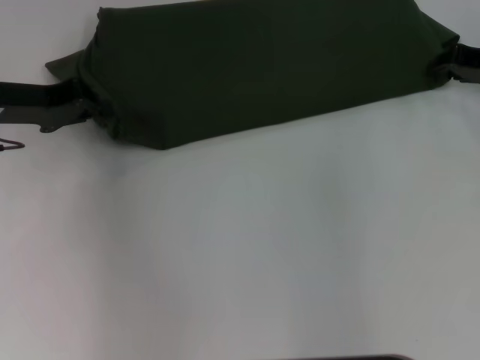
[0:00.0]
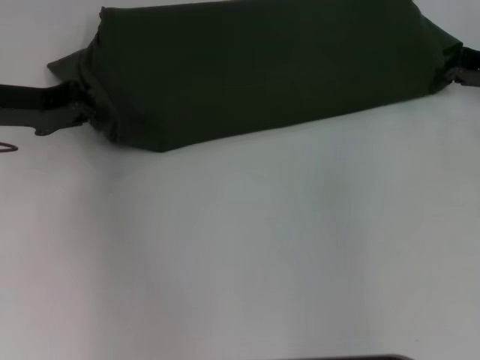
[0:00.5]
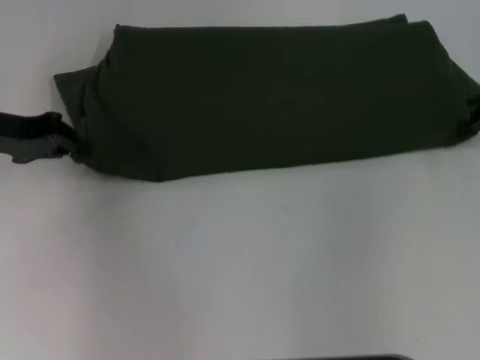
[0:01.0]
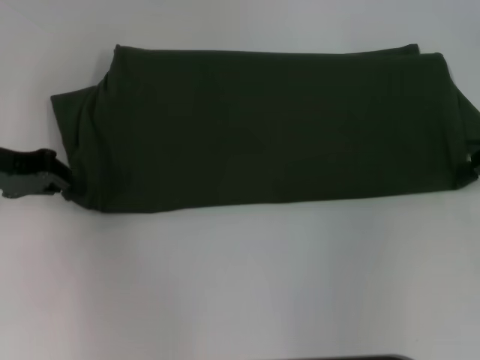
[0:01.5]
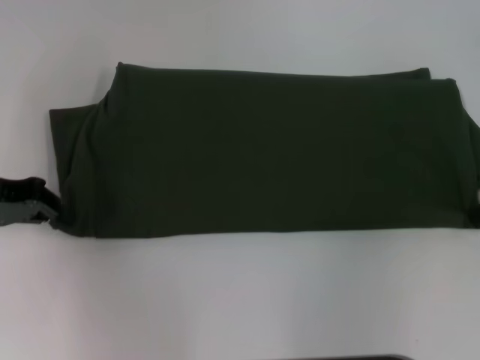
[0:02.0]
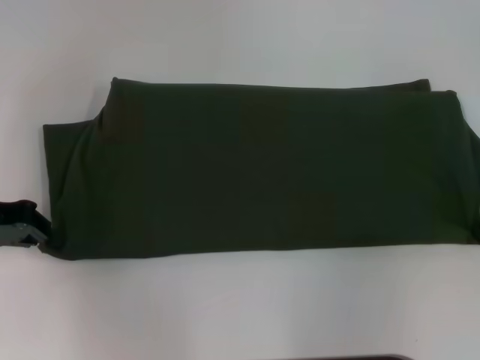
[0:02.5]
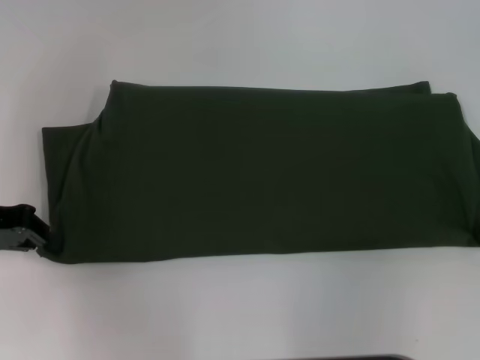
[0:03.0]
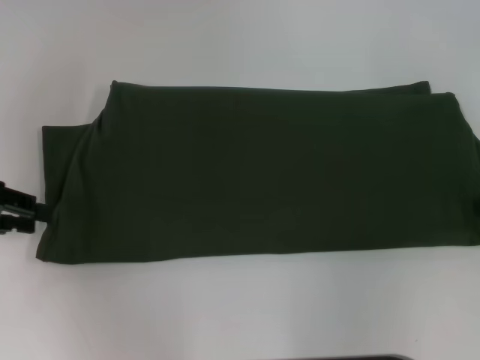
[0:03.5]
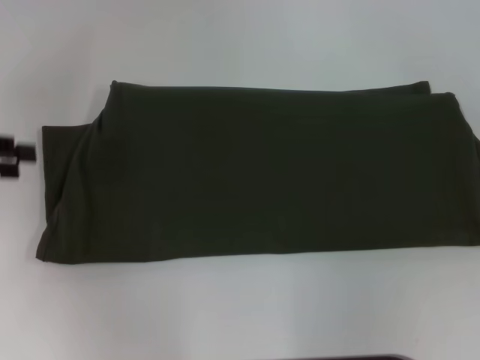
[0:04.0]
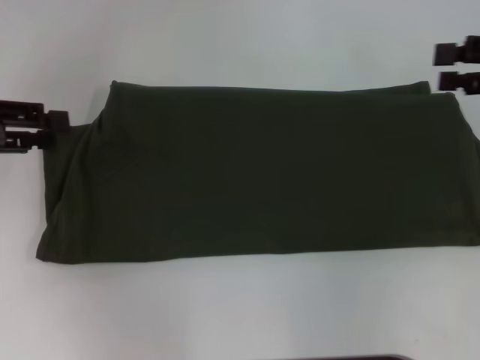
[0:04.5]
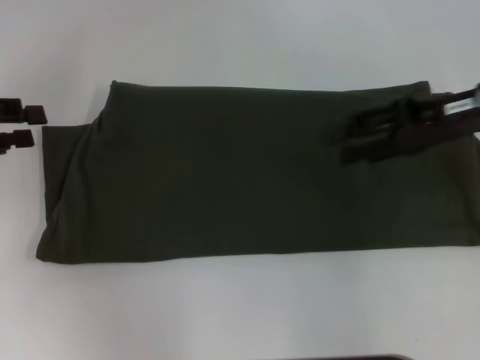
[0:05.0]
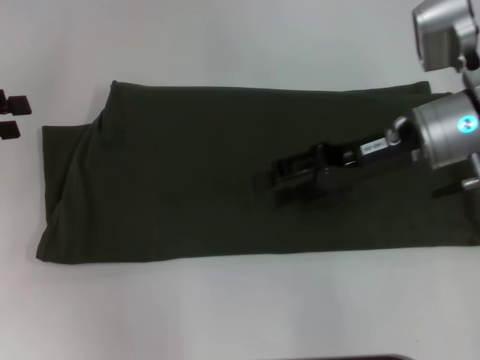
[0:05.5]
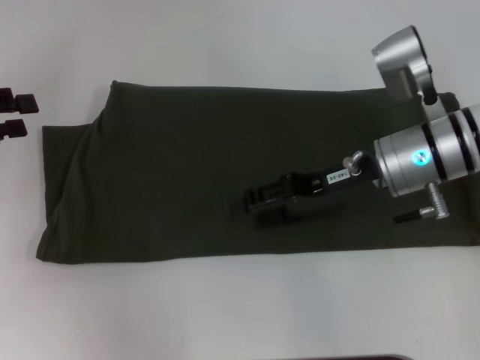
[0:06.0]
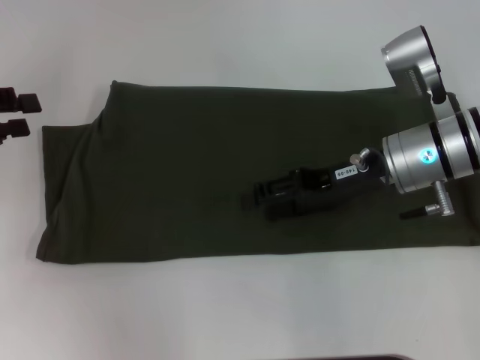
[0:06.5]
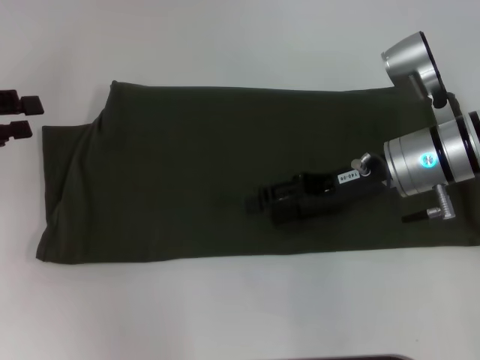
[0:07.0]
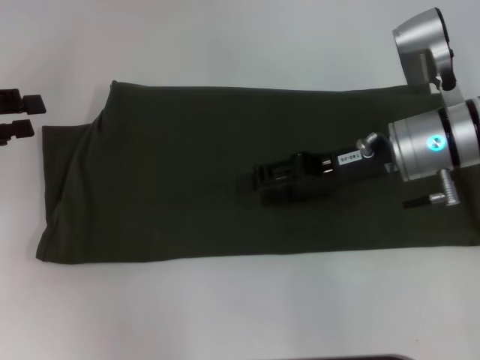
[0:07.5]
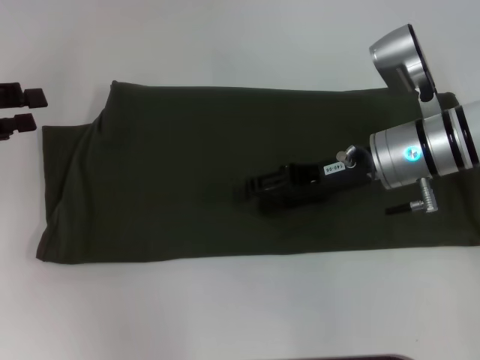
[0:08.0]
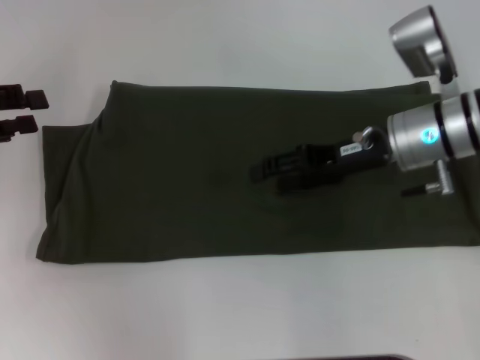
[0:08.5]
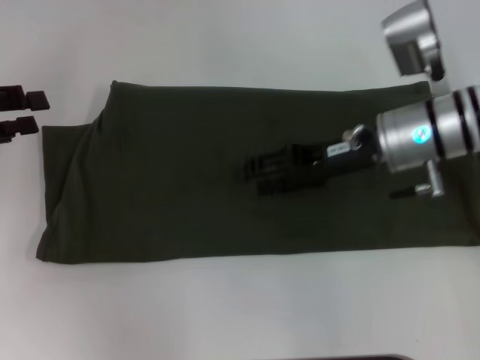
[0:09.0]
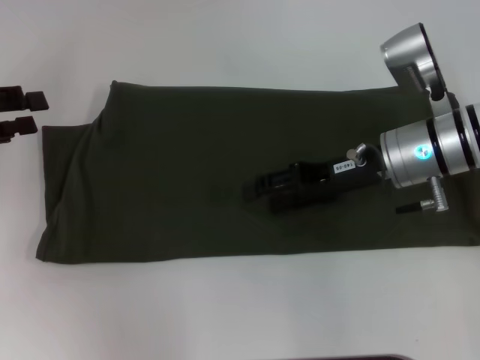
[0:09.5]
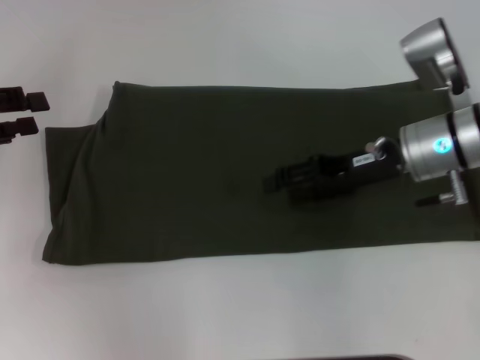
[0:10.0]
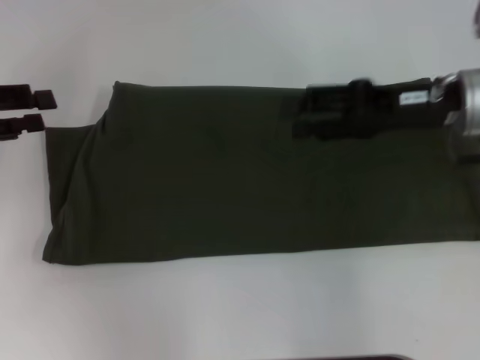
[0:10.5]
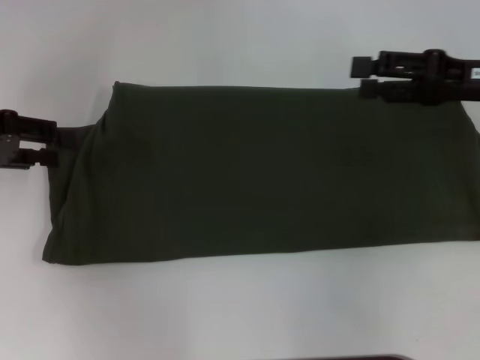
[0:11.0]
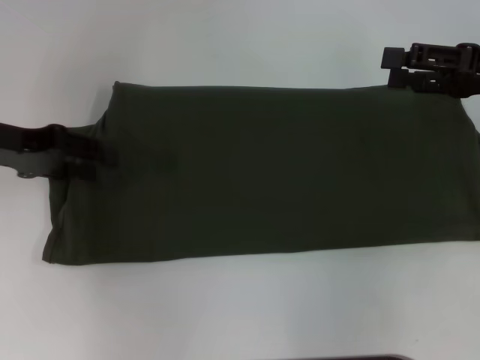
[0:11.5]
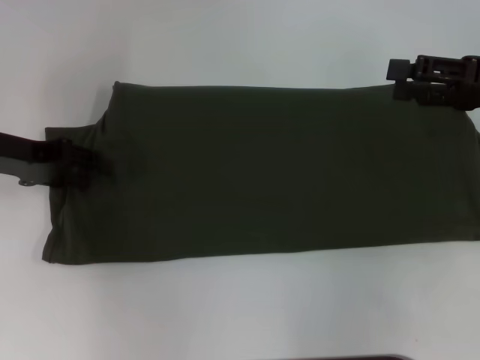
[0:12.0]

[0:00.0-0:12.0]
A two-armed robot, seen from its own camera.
Step, 0:00.0 to 0:03.5: Pull the clothes with your left hand.
Step, 0:00.0 to 0:03.5: Pull the clothes with your right hand.
0:00.0 to 0:02.0: The left gripper is displaced backward by approximately 5 cm; the right gripper shifts some 10 cm backward, and closes up.
0:02.0 to 0:04.0: The left gripper shifts roughly 5 cm to the left, and opens; the right gripper goes about 5 cm upward, and opens.
0:04.0 to 0:06.0: The right gripper goes approximately 25 cm to the left, and opens.
0:06.0 to 0:10.0: There are only small adjustments of the grippers.
0:10.0 to 0:12.0: The right gripper moves to the right and upward, approximately 15 cm; the left gripper shifts about 5 cm to the right.

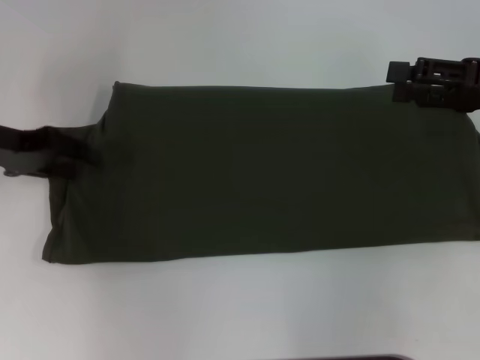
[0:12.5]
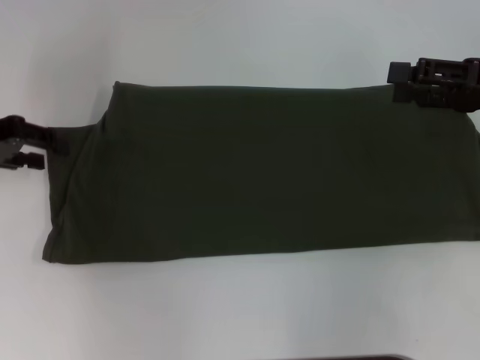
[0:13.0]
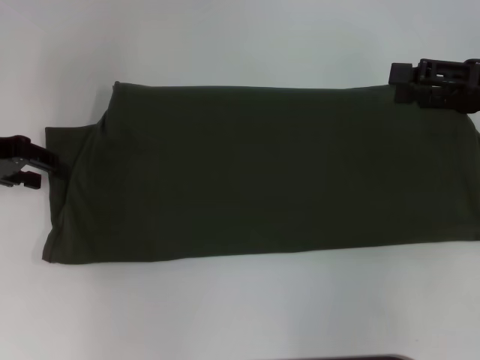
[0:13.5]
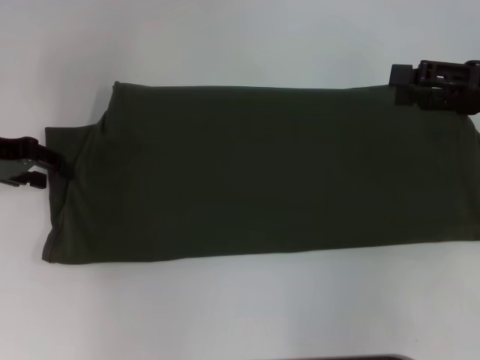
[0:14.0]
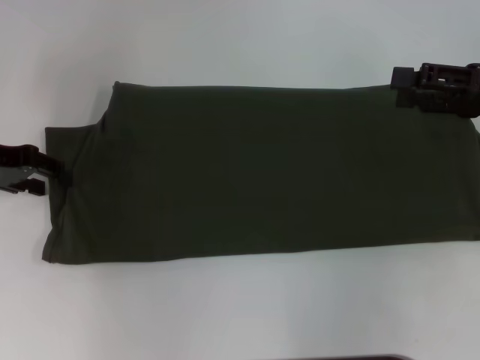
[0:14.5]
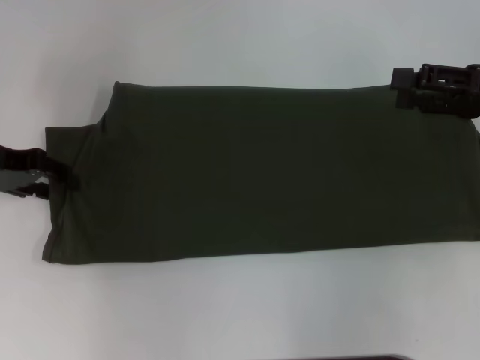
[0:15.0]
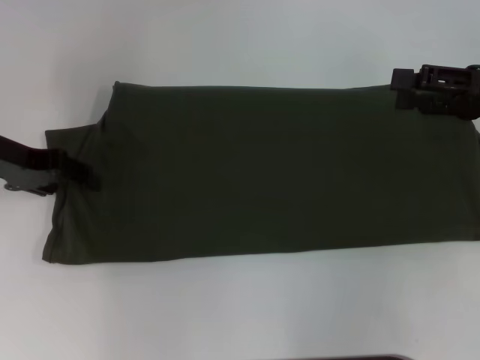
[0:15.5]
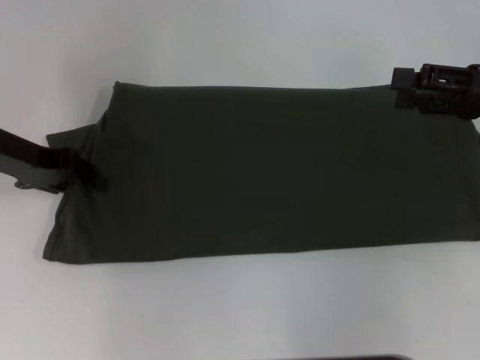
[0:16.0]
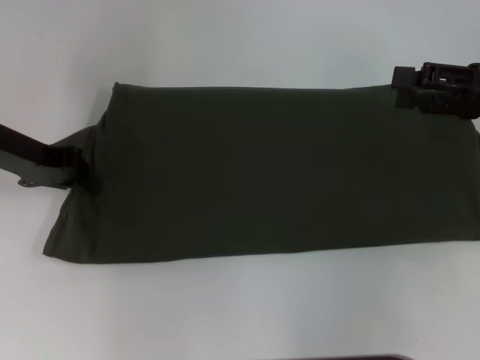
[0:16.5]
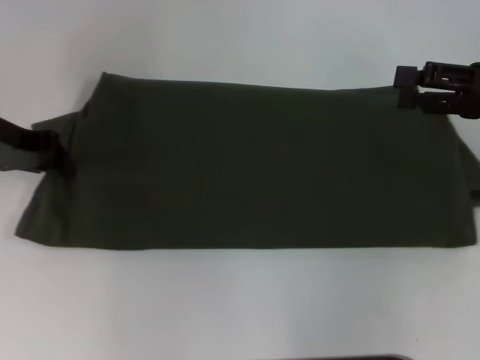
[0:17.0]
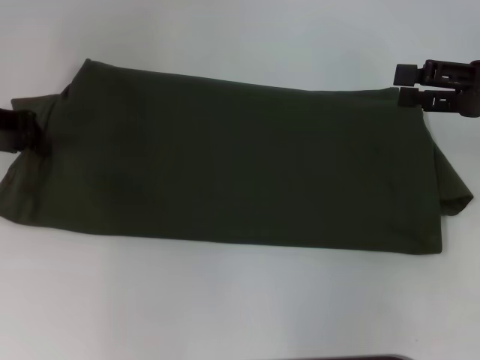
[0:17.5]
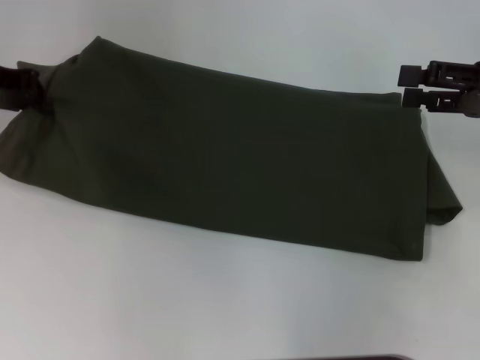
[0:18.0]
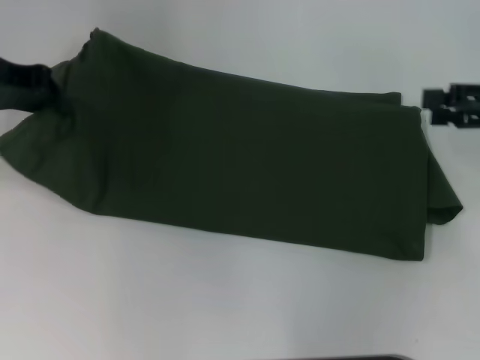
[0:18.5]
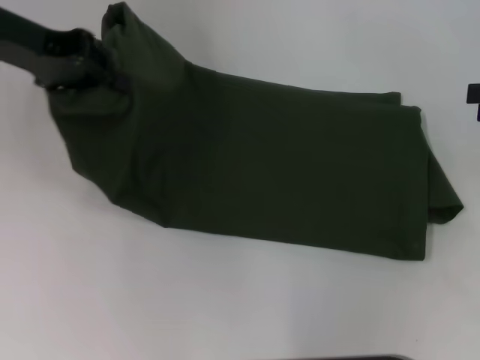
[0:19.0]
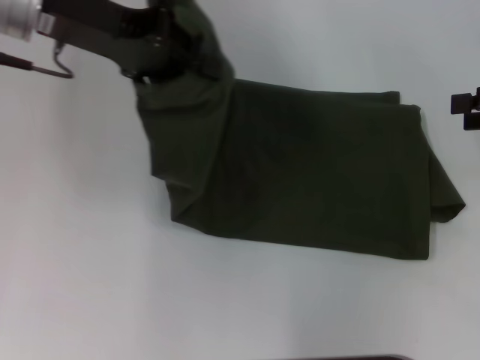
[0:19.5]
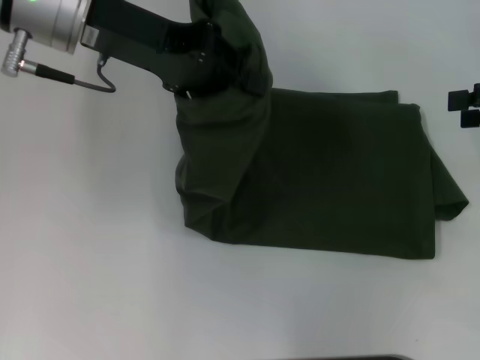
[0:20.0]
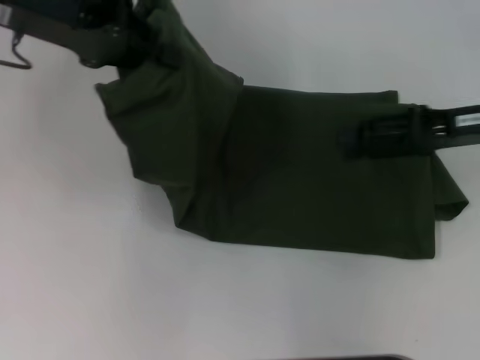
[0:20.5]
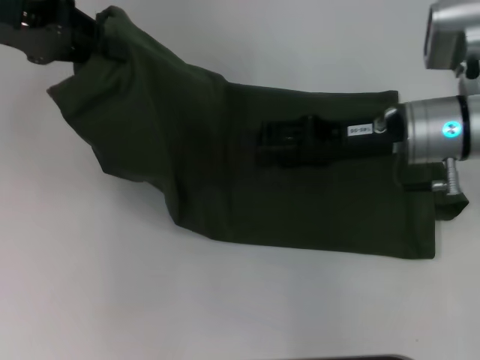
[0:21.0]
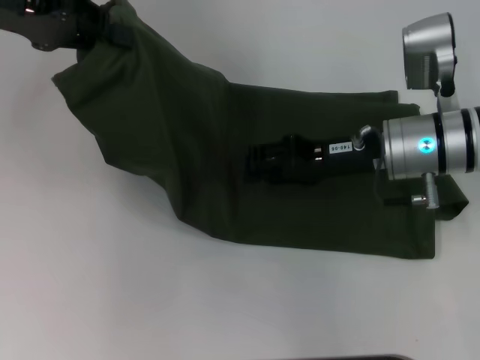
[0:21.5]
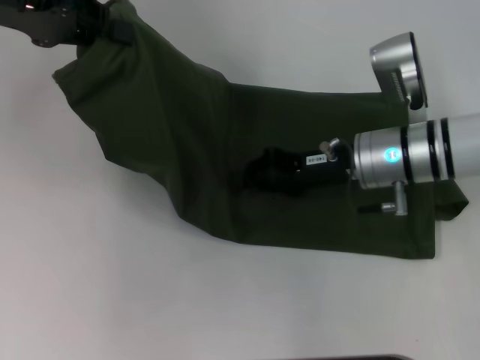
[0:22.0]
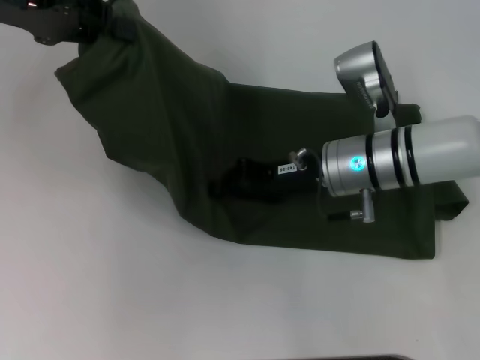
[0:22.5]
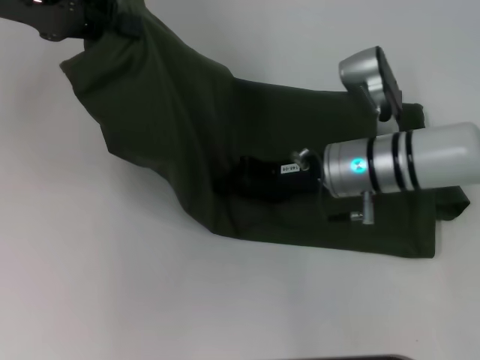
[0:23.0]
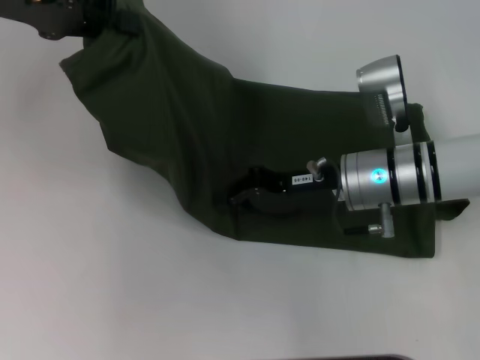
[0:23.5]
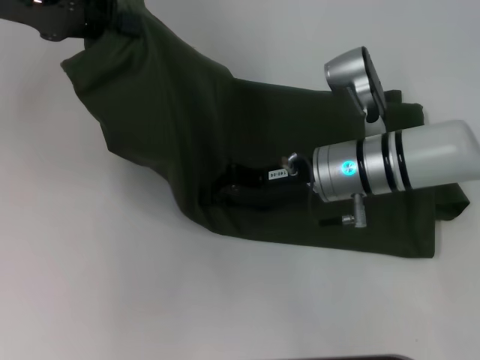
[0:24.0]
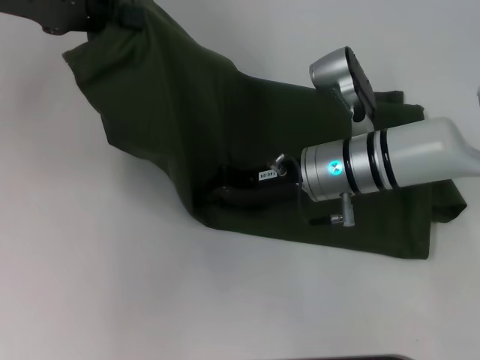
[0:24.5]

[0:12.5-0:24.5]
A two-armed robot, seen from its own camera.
0:12.5 to 0:14.5: The grippers stay close to where they were, moving slightly.
0:14.5 to 0:16.5: The left gripper closes its fingers.
0:16.5 to 0:18.5: The left gripper travels upward by some 5 cm.
0:18.5 to 0:20.5: The left gripper moves to the right and upward, approximately 10 cm; the right gripper is displaced to the left by some 5 cm.
0:20.5 to 0:22.5: The right gripper travels to the left and downward by about 15 cm, and closes its fingers.
0:22.5 to 0:24.5: The grippers move only a little.

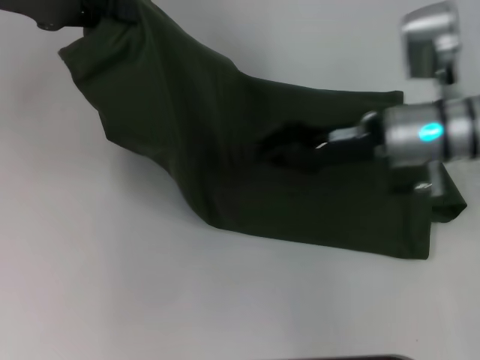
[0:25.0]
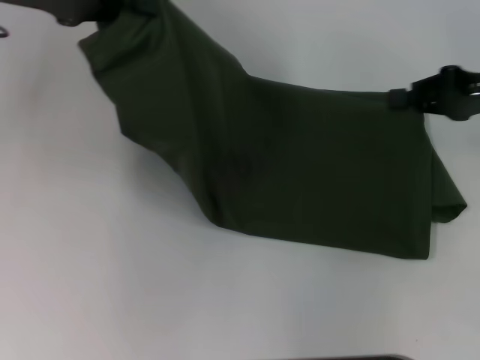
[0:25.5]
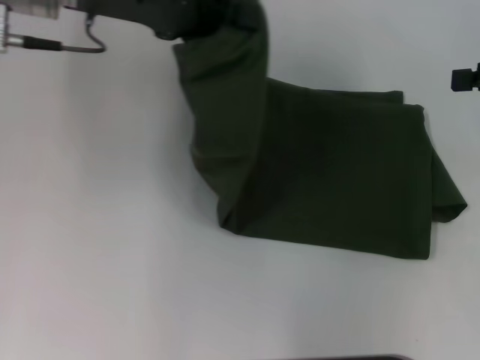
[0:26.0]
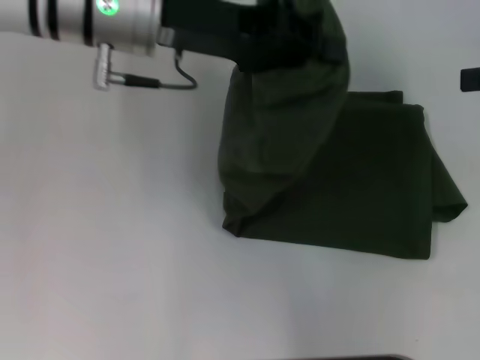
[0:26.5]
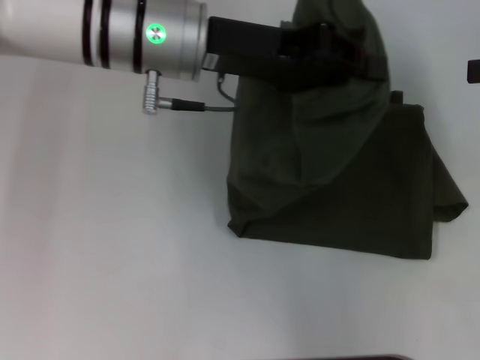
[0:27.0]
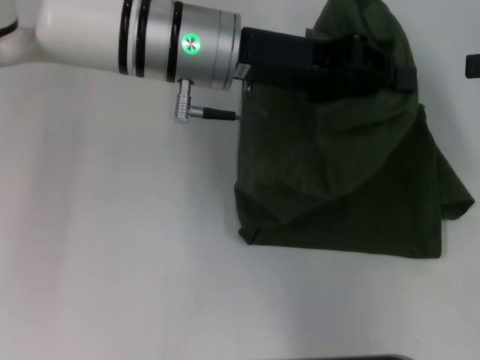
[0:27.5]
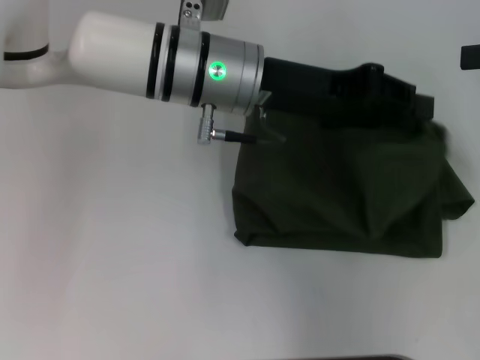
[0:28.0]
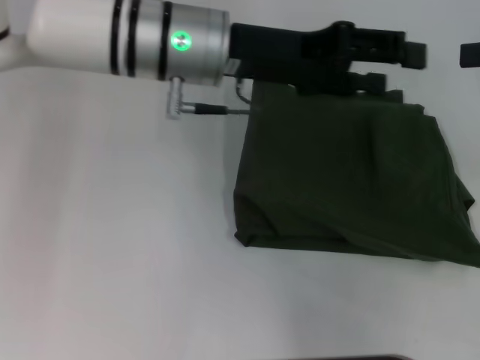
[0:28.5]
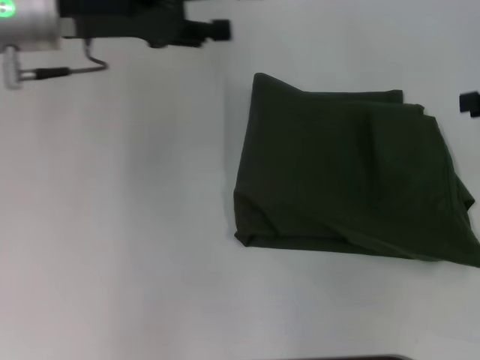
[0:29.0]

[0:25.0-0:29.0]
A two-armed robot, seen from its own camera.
Step, 0:25.0 to 0:28.0: Fold the clothes with your left hand.
0:25.0 to 0:27.0: The right gripper is displaced to the right and upward by some 20 cm; the left gripper travels to the right by about 20 cm.
0:27.0 to 0:29.0: The left gripper goes some 10 cm to the left, and opens.
